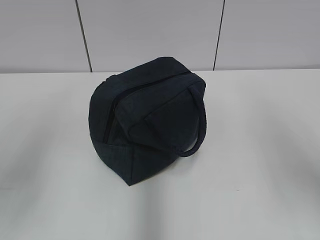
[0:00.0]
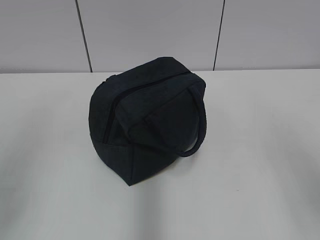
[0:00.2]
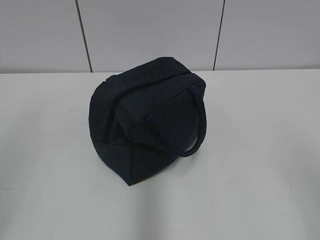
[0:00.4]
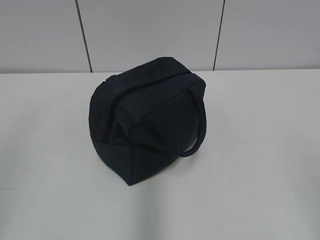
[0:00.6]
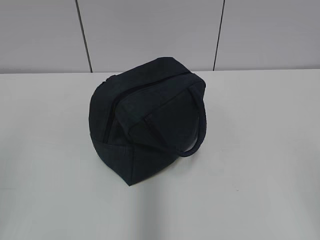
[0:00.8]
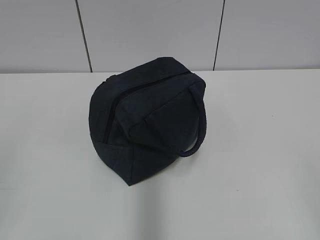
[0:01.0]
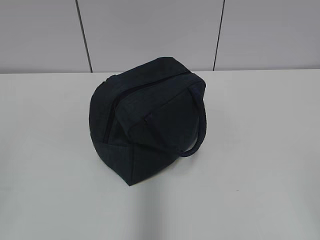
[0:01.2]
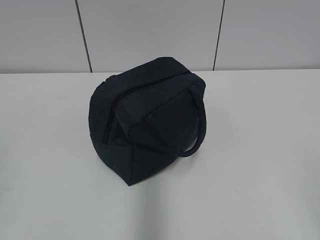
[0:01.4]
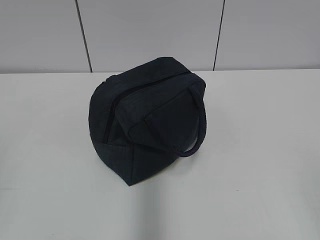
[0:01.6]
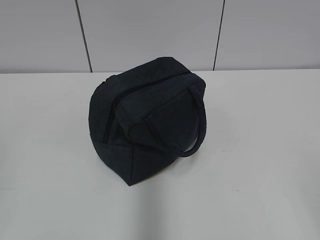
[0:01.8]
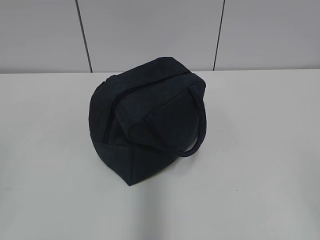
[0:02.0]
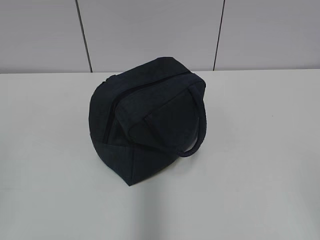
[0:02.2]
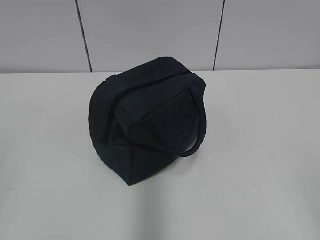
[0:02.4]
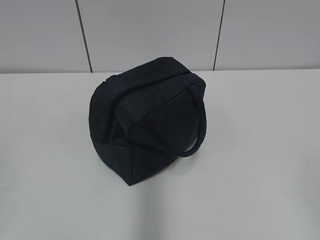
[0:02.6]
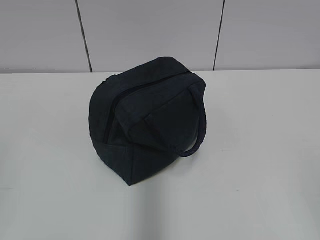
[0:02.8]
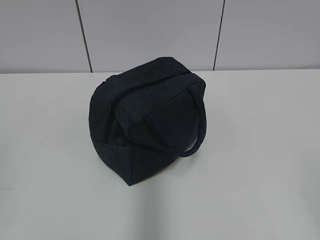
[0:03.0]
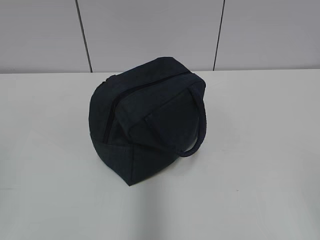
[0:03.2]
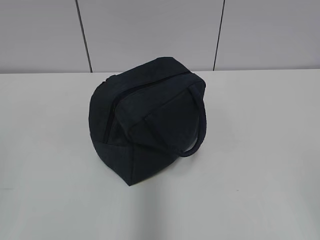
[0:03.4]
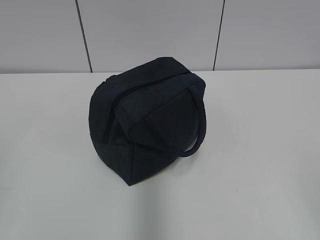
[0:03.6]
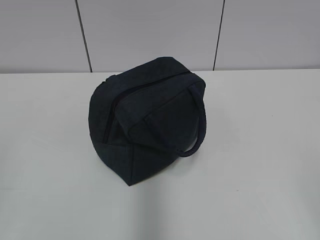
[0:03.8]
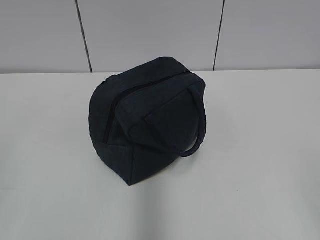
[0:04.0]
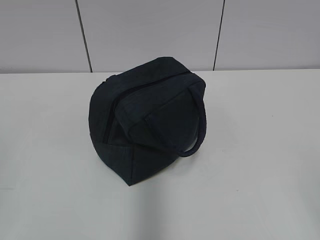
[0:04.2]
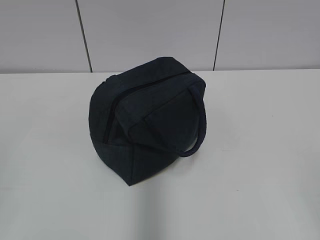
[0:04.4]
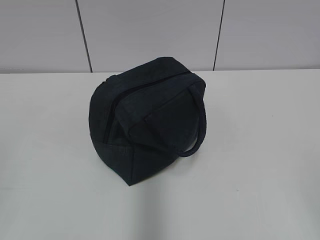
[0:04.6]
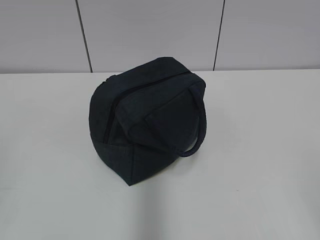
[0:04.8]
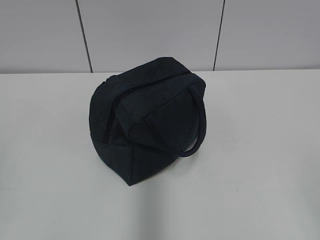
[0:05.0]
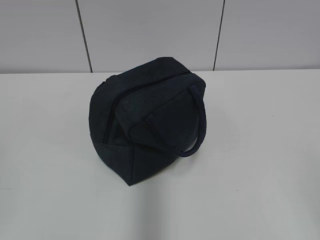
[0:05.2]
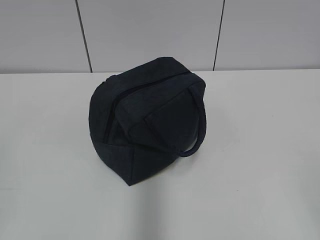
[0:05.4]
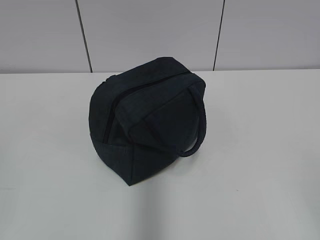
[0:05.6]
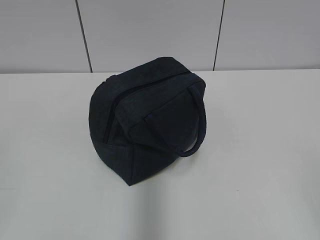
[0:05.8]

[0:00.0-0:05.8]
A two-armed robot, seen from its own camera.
0:01.4 to 0:04.4: Both grippers stay about where they are.
